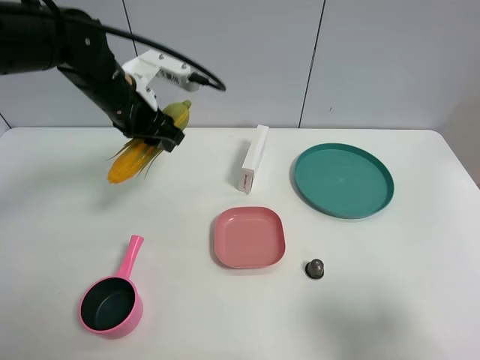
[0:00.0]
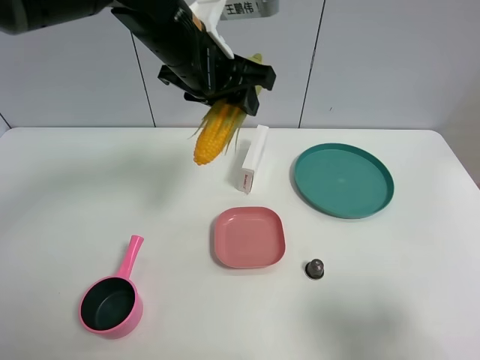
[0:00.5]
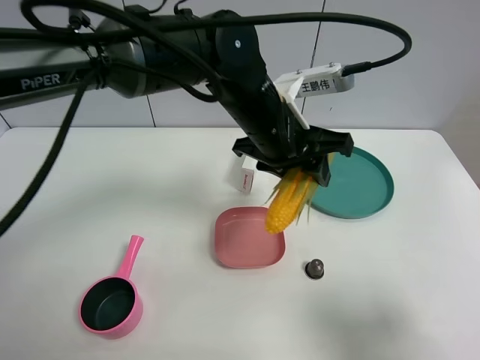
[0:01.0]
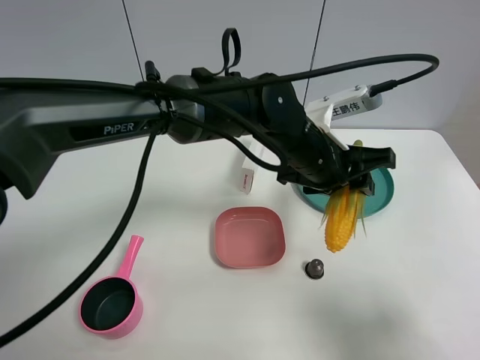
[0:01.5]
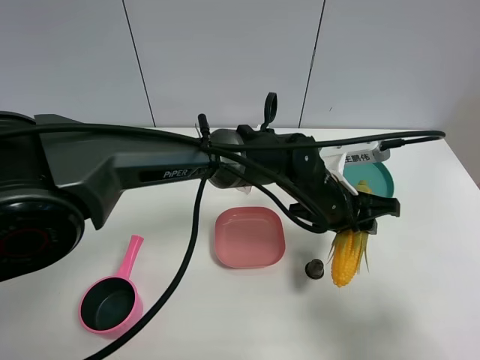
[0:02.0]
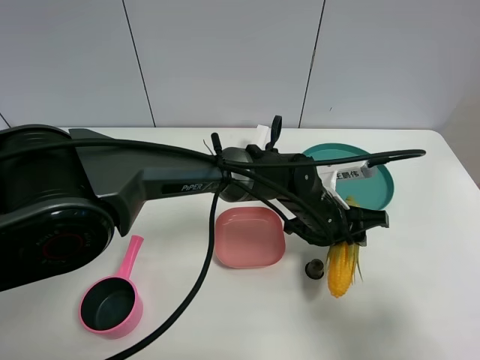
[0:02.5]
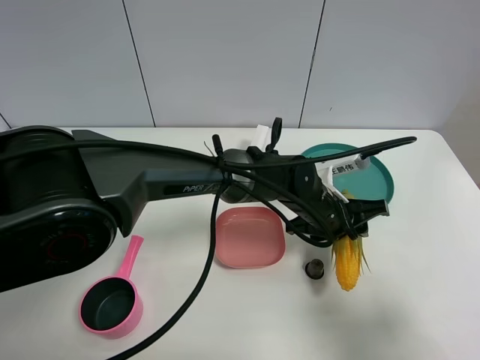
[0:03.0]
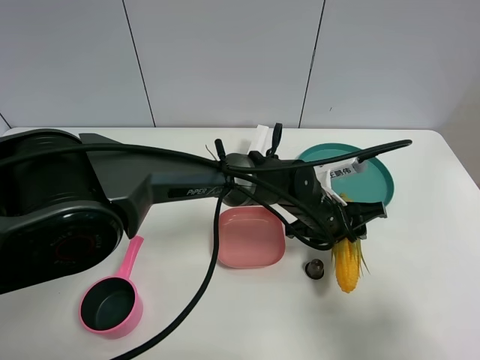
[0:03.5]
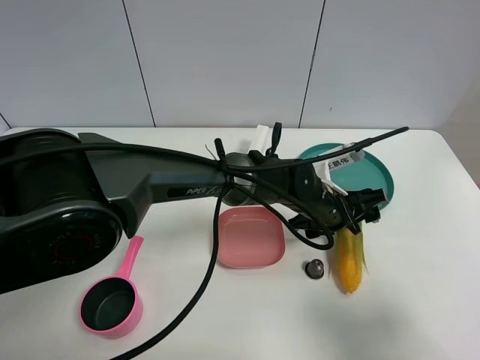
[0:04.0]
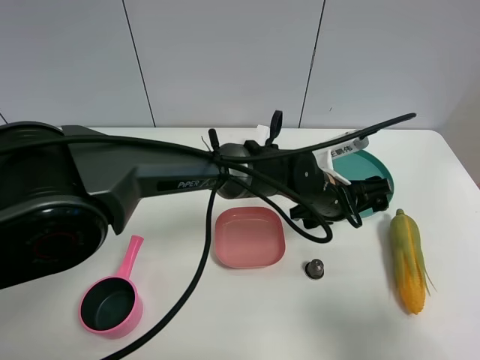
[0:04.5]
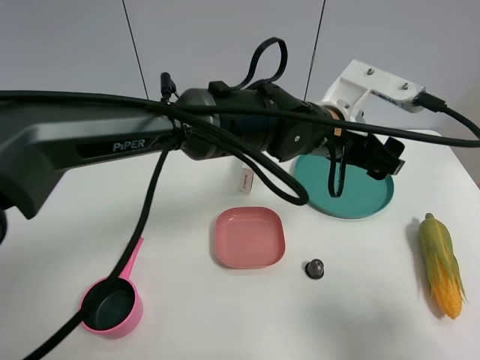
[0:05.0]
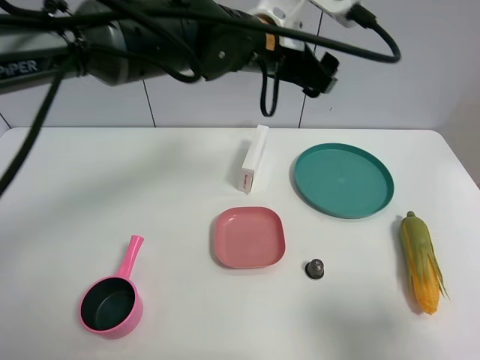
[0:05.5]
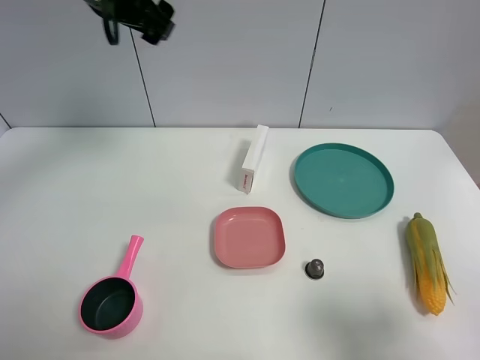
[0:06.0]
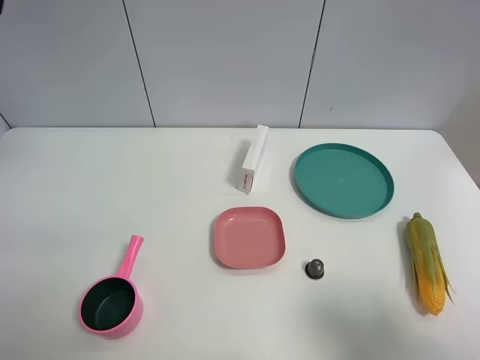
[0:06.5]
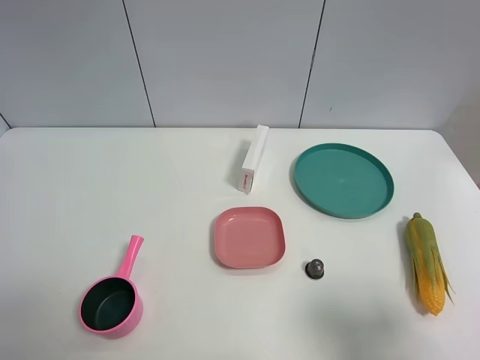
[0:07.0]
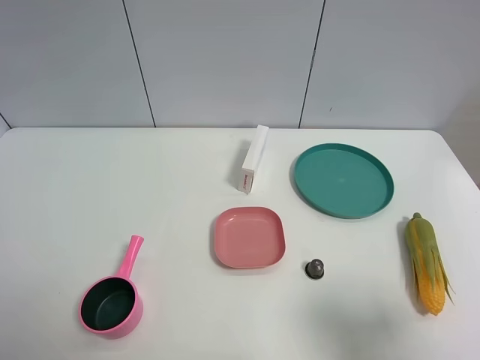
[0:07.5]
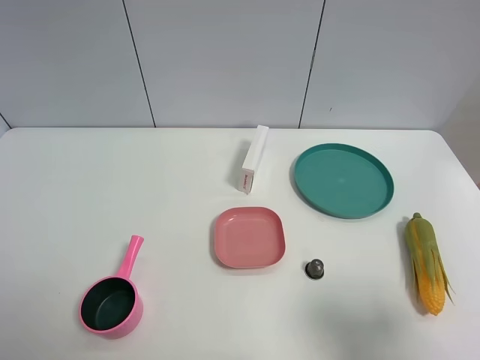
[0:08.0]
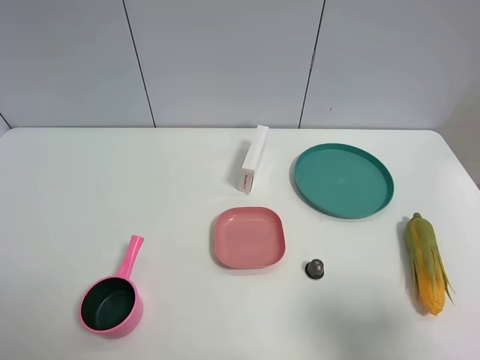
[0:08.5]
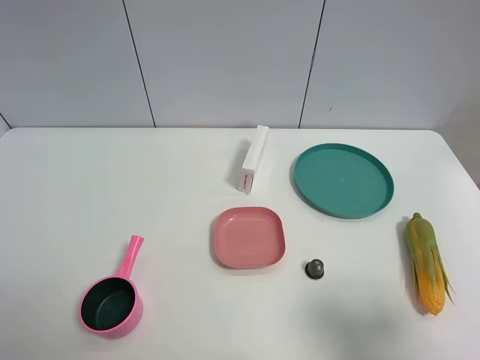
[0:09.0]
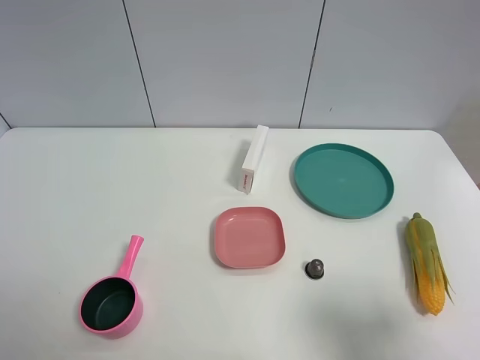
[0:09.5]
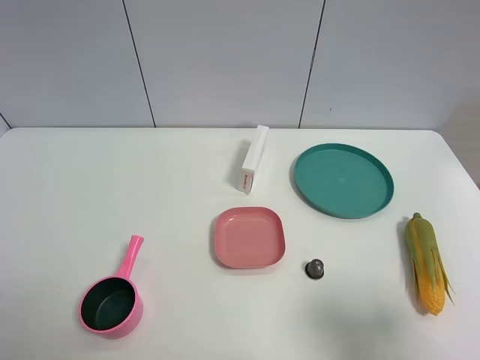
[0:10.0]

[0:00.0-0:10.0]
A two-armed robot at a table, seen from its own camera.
Task of the whole recording: the gripper move the object.
Step, 0:00.0 to 0:04.5: Place the corn on the table with the left gripper.
0:00.0 to 0:02.0: The left gripper goes roughly 30 cm to the right and downward.
0:02.0 to 0:04.0: The left gripper opens up.
0:04.0 to 0:06.0: The left gripper moves to the left and upward, about 40 cm.
0:06.0 to 0:08.0: The left gripper is displaced backward by roughly 35 cm.

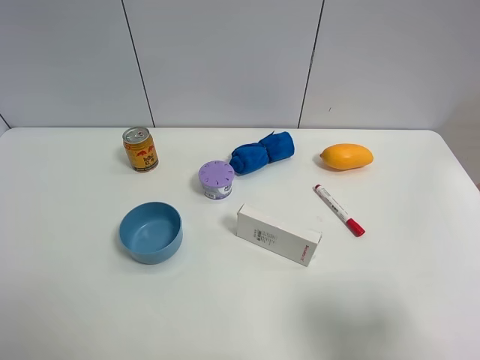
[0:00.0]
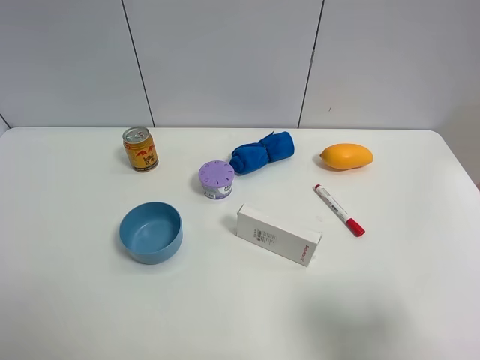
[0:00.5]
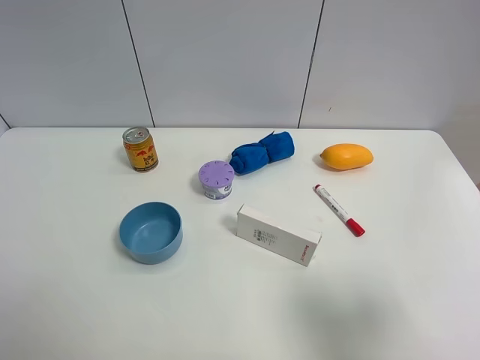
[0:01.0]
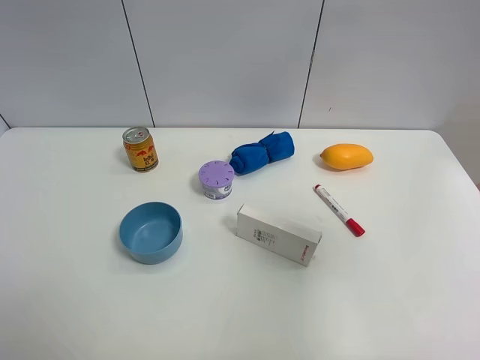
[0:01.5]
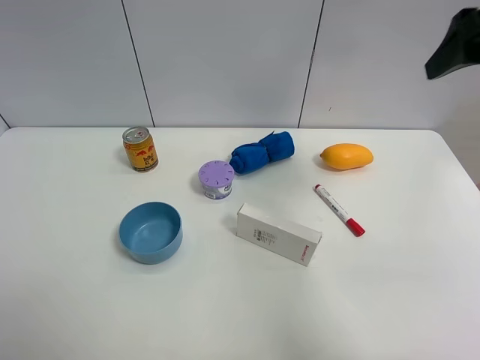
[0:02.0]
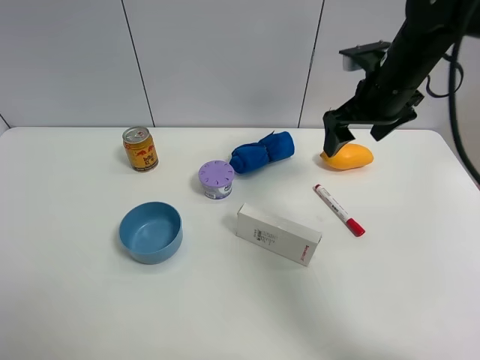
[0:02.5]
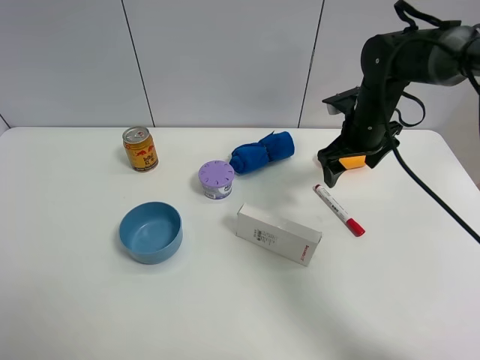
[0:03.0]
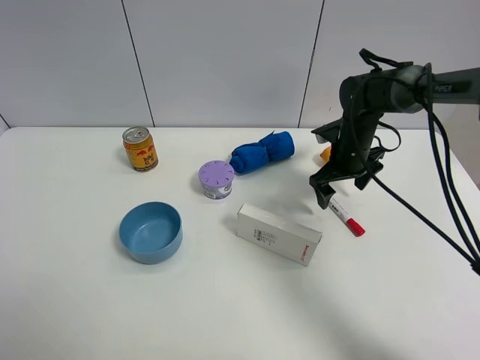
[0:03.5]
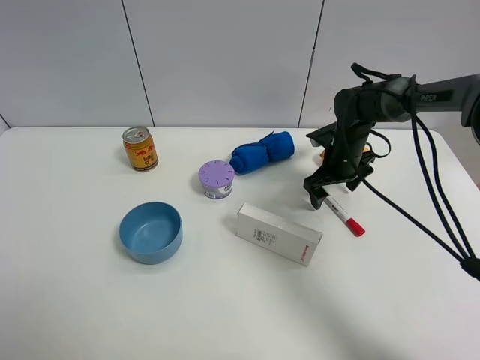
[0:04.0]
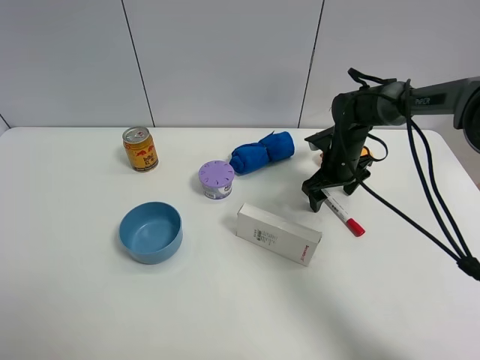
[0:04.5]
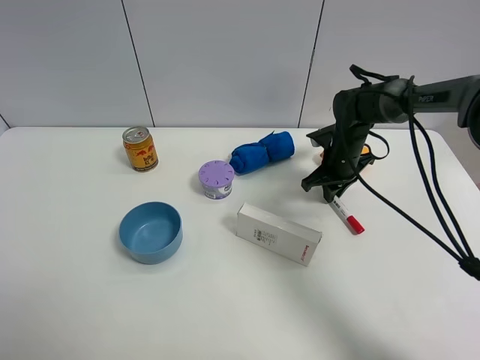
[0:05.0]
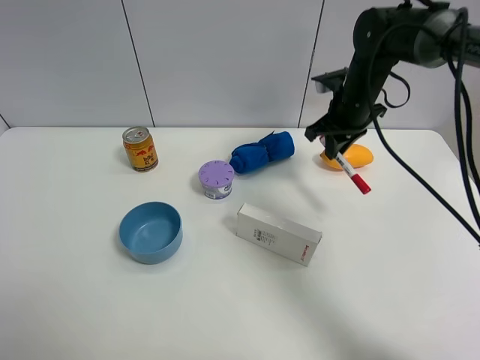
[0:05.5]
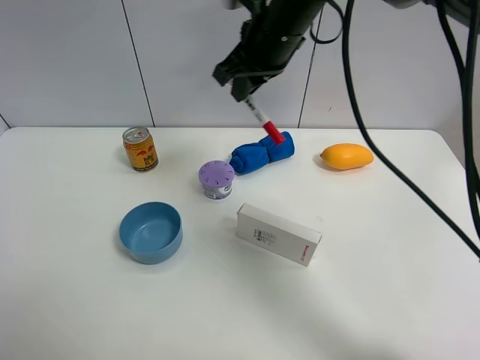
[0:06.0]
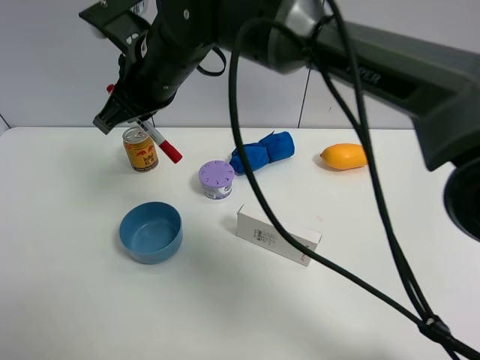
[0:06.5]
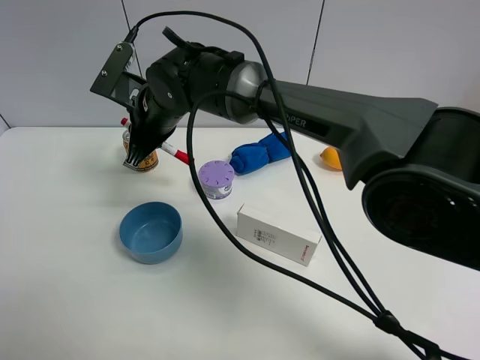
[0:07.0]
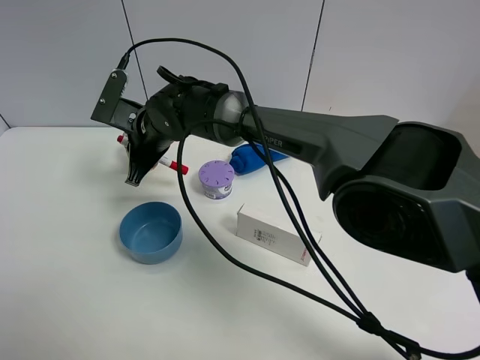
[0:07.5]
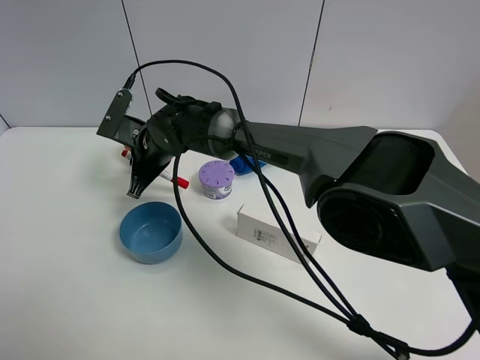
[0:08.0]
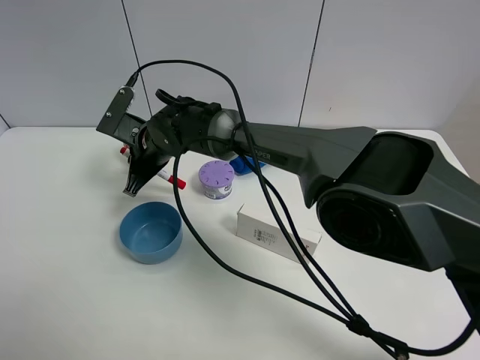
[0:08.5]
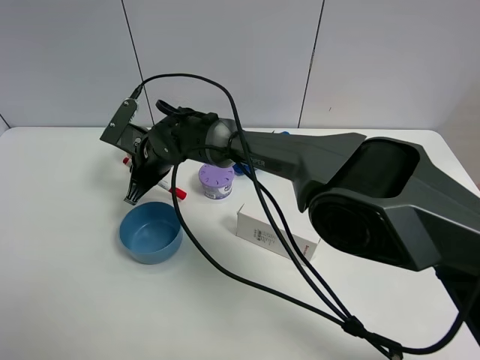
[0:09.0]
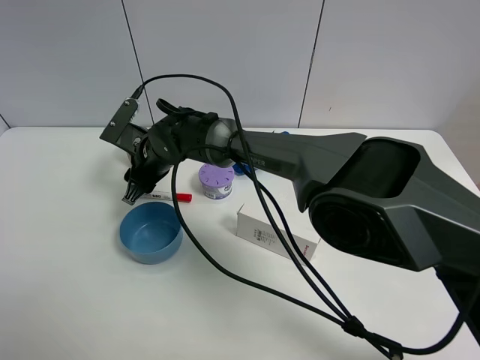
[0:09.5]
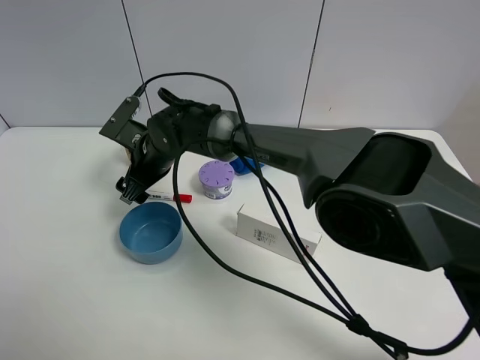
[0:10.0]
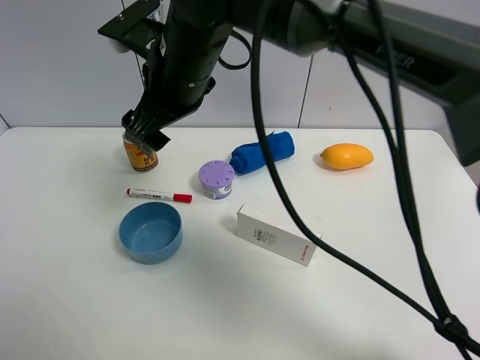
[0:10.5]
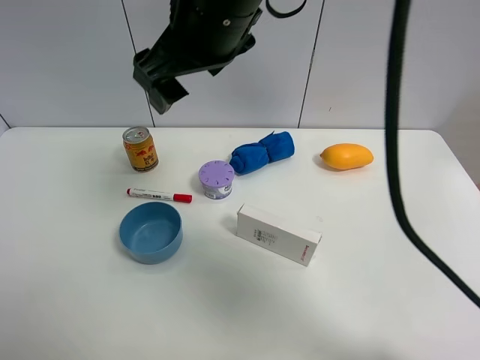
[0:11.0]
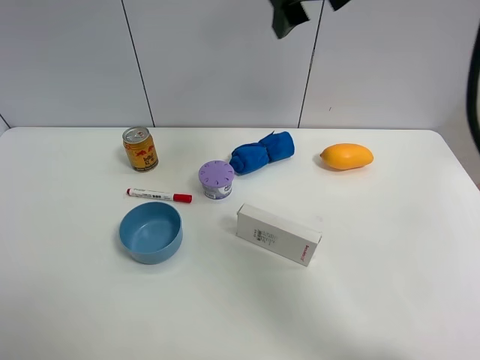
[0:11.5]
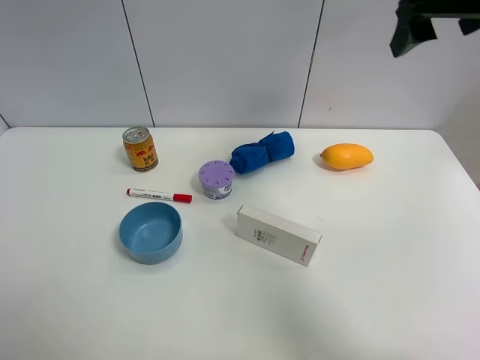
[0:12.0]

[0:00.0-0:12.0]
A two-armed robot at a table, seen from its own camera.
Task of the whole recording: the gripper move the object.
Step, 0:00.0 to 0:04.5: Grasp the red marker pen with the right gripper.
Step, 0:05.0 to 0:09.5: Place the red marker pen on the table with the right gripper.
0:00.0 to 0:02.0: The right gripper heads forward and upward, covering about 30 cm.
0:02.0 to 0:04.0: The right gripper travels downward and forward by about 35 cm.
0:04.0 to 0:06.0: The right gripper heads upward and to the left, covering approximately 30 cm, and closes.
0:06.0 to 0:08.0: The right gripper shifts about 25 cm downward and to the left.
0:08.0 to 0:10.0: The right gripper opens its fingers.
0:10.0 to 0:12.0: The right gripper shifts roughly 40 cm to the right and upward.

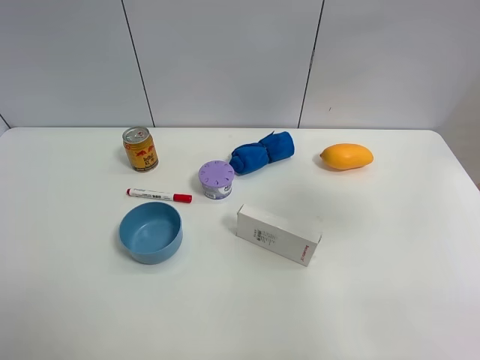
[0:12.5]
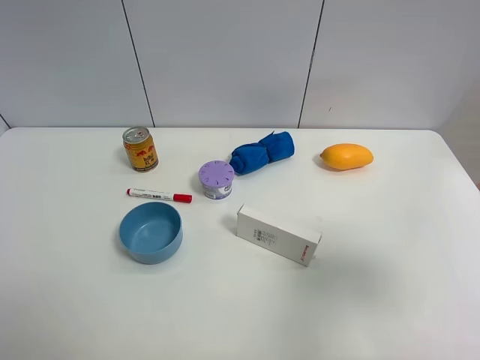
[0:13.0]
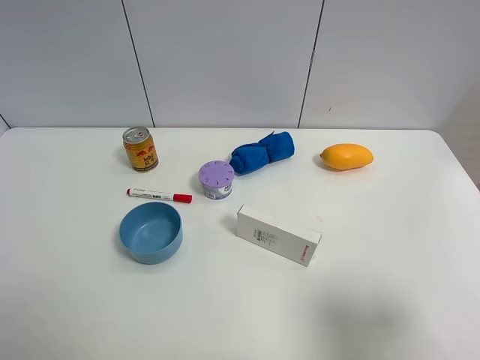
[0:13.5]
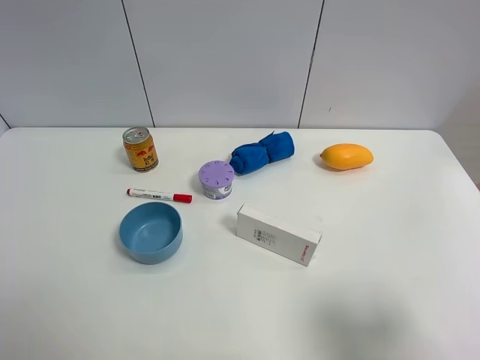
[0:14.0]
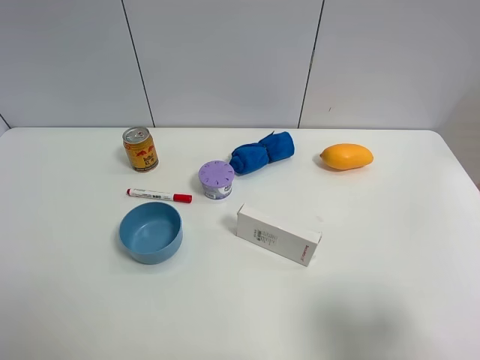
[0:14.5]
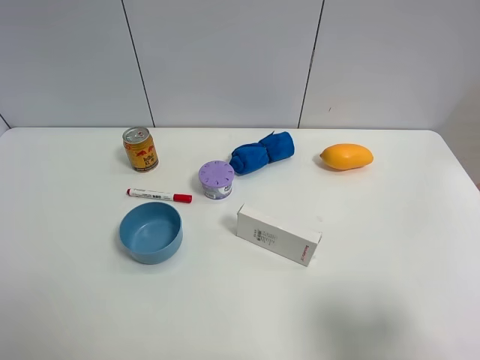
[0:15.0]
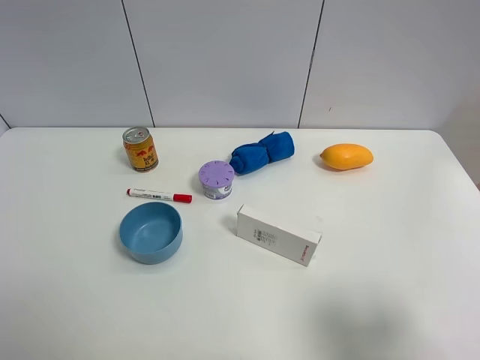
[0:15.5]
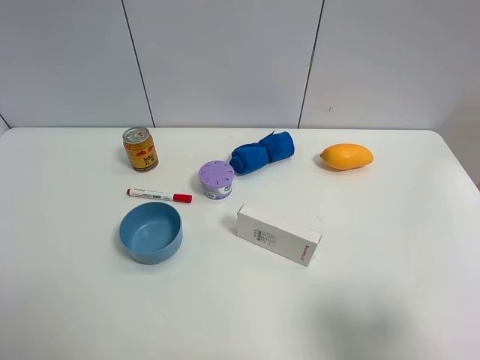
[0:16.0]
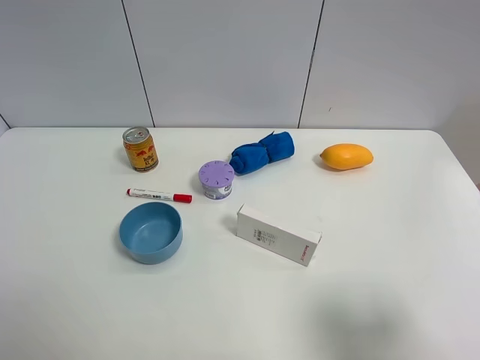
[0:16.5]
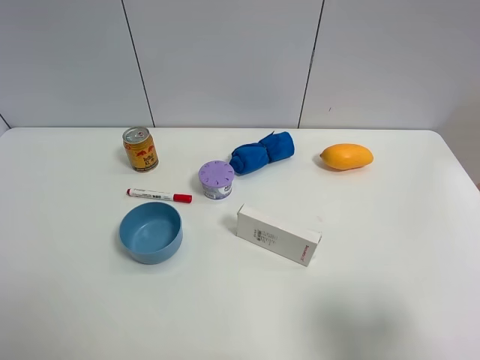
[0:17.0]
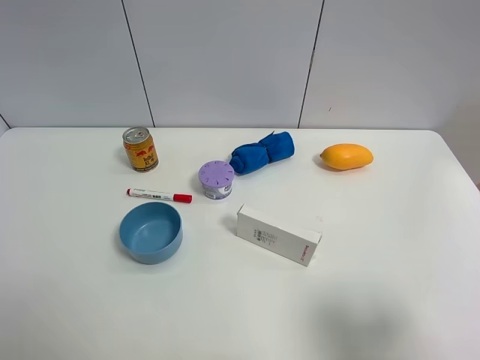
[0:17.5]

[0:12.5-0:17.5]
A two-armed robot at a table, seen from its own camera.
Task of the whole recording: the gripper move the object.
0:12.5 to 0:15.0: The right gripper shifts about 20 cm backward and downward.
0:15.0 to 0:17.5: The two grippers keep their place.
